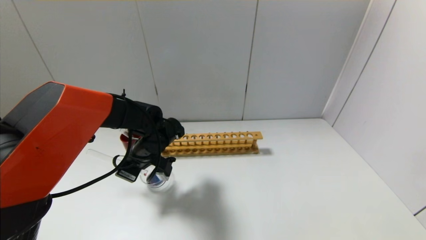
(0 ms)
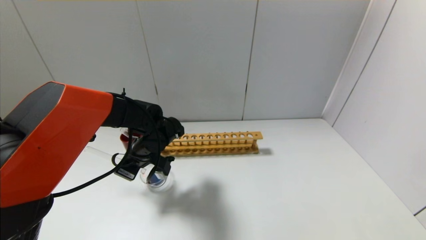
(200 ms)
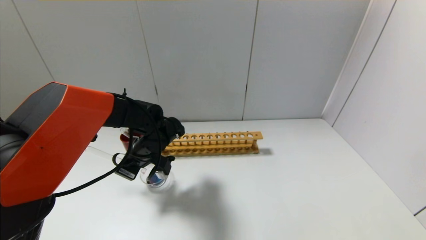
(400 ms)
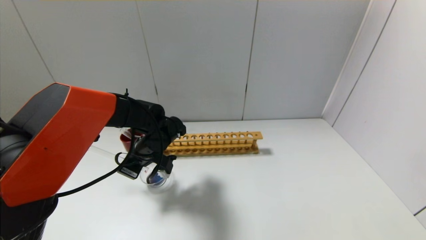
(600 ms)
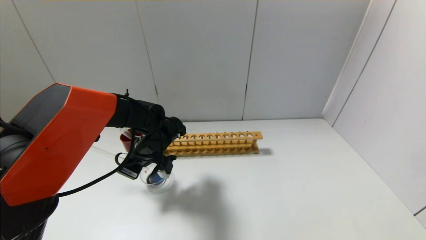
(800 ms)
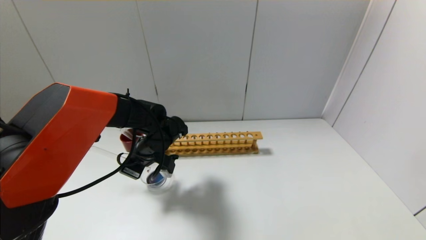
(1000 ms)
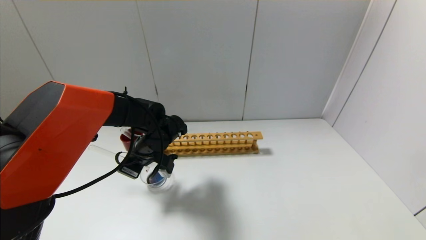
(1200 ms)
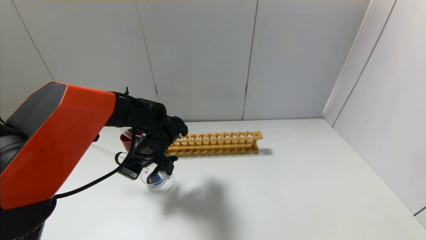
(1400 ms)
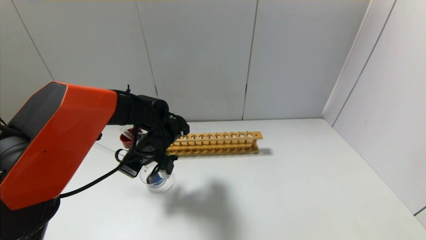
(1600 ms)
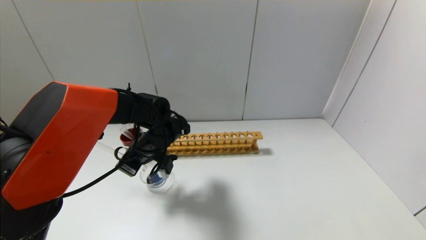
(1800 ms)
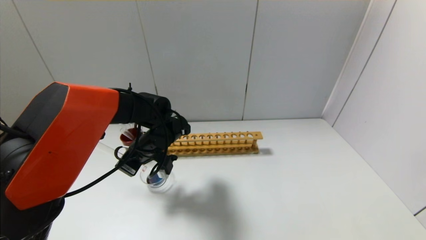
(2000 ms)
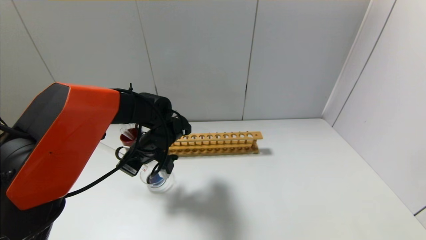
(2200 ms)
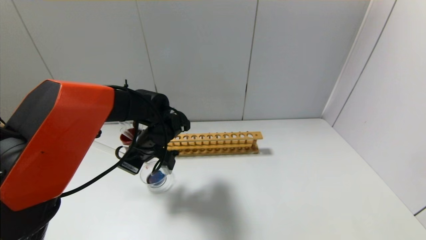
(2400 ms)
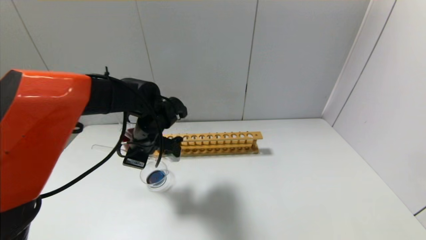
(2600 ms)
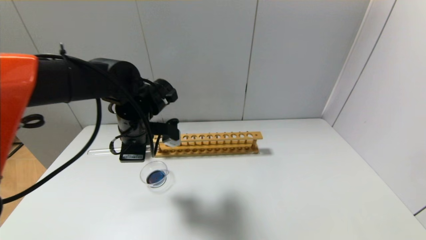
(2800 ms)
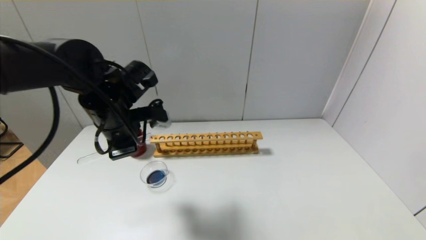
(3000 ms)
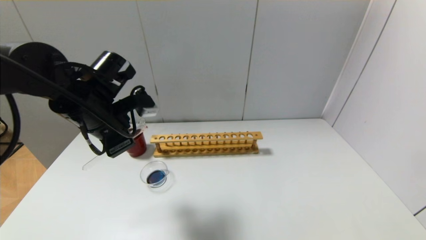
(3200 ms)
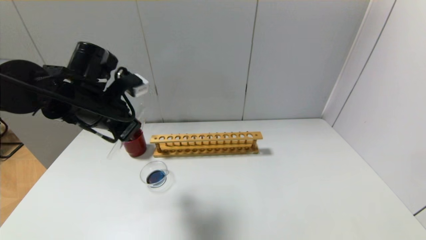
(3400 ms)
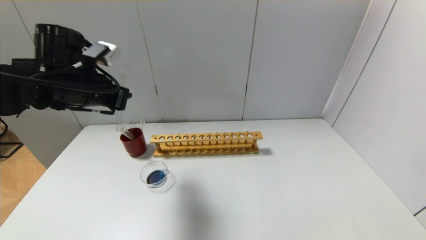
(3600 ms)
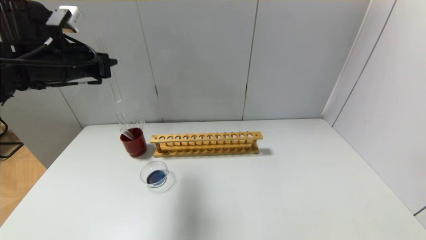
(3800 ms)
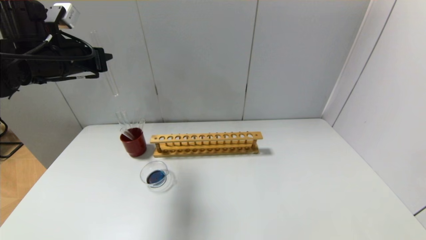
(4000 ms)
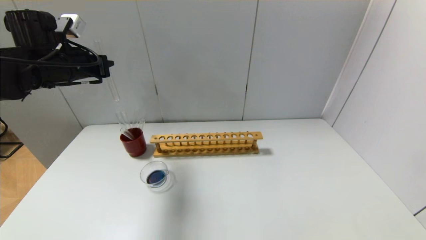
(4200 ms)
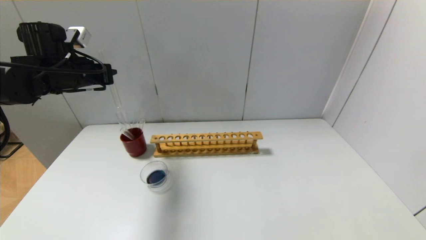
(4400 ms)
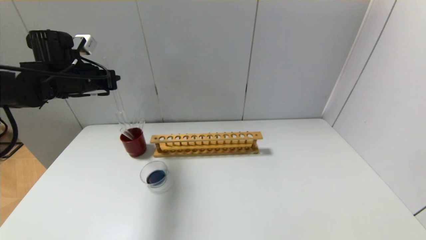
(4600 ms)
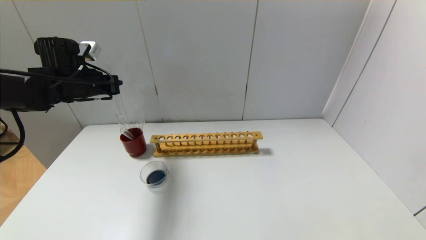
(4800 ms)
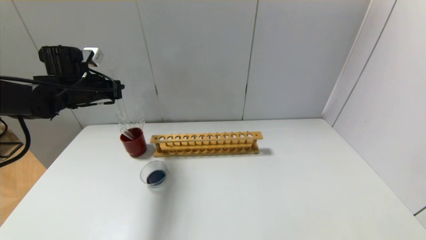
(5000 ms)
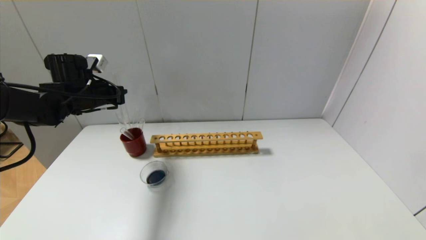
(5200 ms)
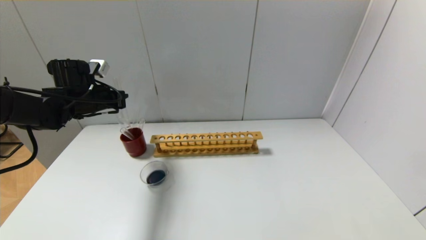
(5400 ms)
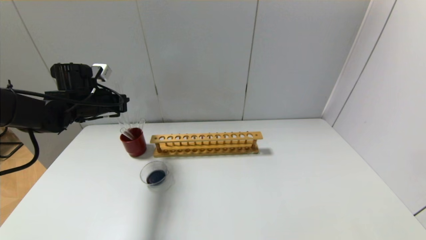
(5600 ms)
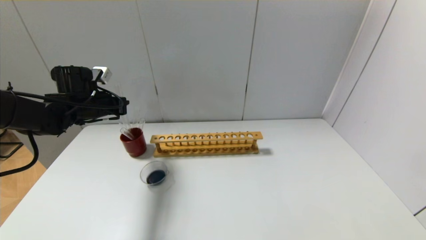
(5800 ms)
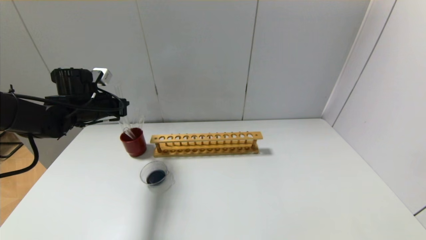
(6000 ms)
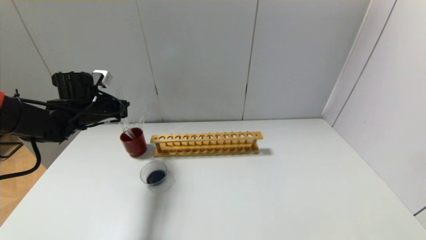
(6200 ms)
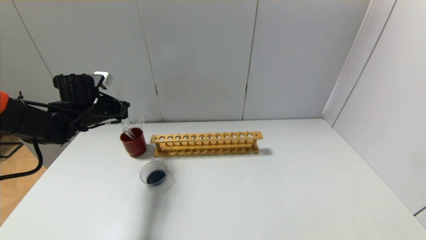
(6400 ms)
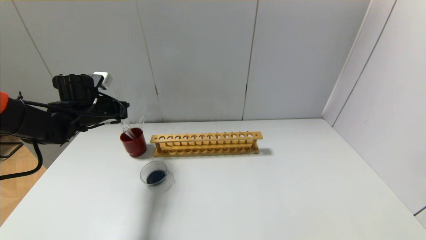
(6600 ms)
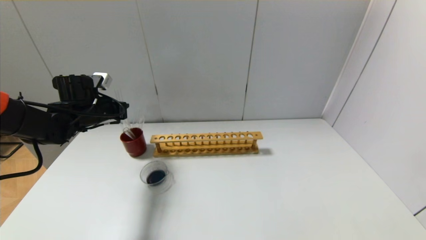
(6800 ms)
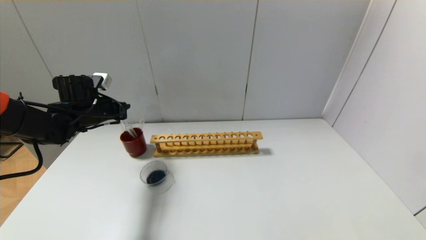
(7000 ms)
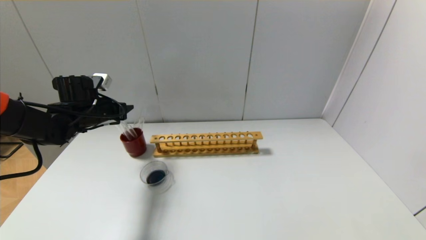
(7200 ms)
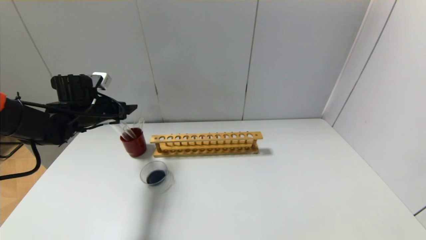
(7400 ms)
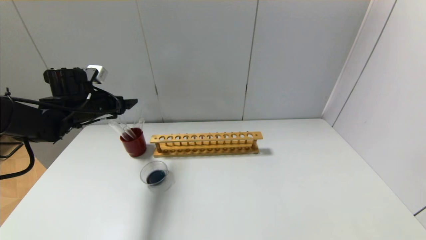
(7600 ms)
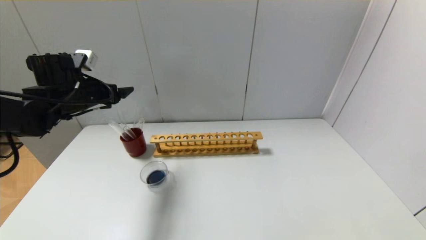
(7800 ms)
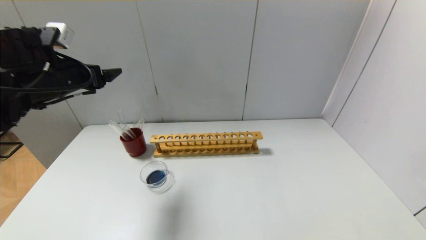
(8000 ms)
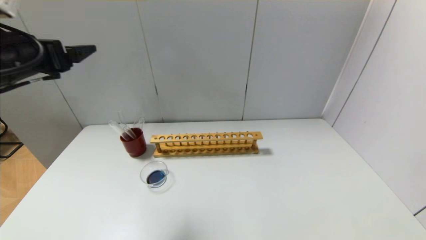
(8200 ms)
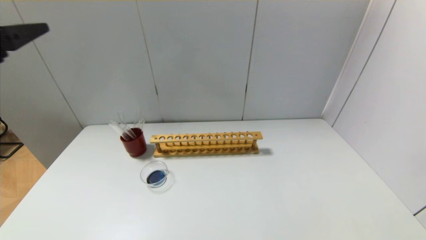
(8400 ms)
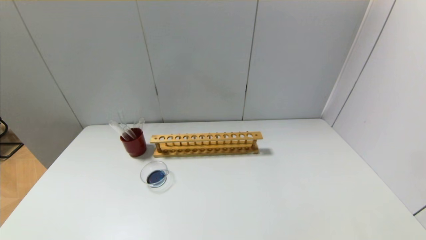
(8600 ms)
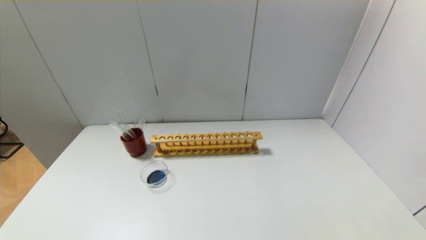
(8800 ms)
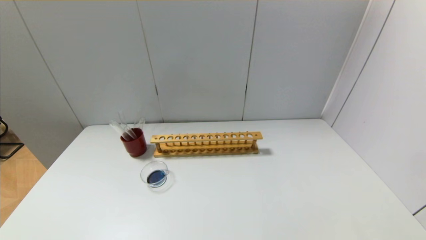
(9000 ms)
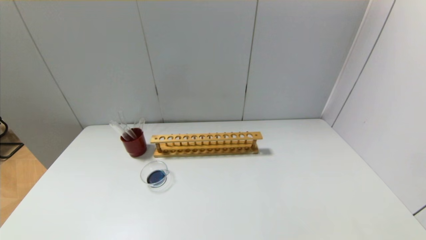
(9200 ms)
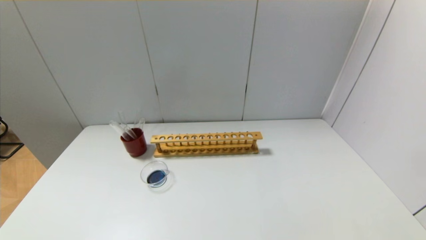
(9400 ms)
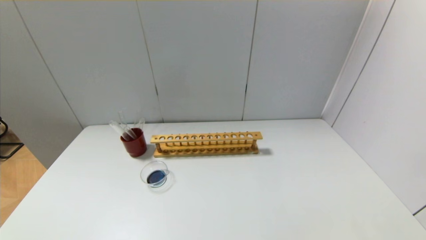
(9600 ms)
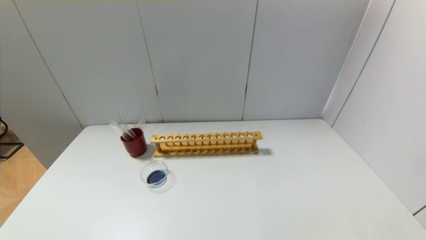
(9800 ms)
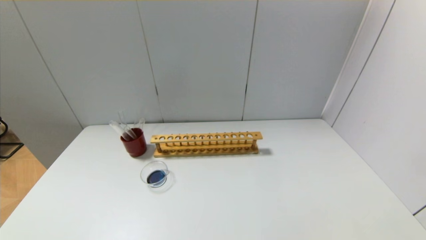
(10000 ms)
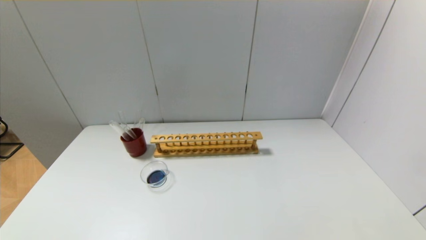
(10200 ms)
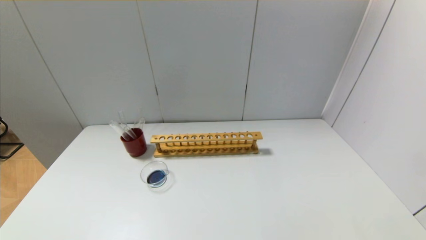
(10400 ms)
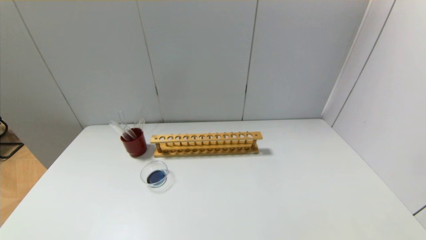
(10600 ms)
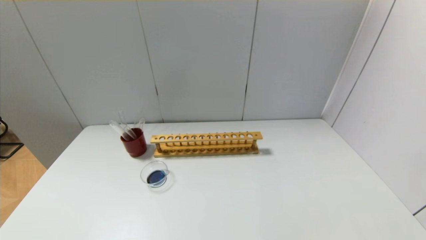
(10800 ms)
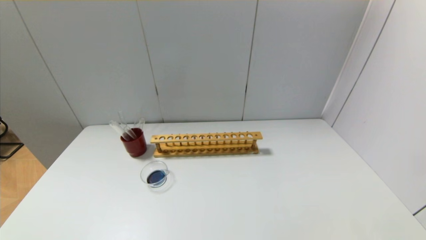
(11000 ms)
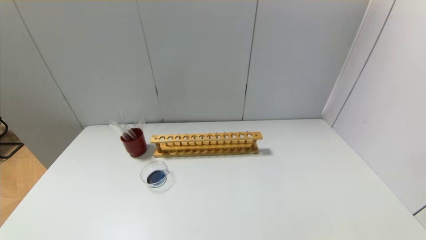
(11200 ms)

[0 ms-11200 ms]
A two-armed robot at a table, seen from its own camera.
Step, 0 ms to 2200 ms: Pour the red reagent into the graduated cylinder with the left gripper.
Step, 2400 ms to 7200 ms: Place the test tube into the brown cup with the left gripper.
0 ms to 1600 ms: The grippers stay close to where they were, moving slightly.
1600 ms to 3200 ms: The left gripper heads upward, backward and to the left, covering roughly 15 cm.
3200 ms to 4800 ms: The left gripper is displaced forward and to the left by about 15 cm.
4800 ms to 6400 ms: The left gripper heads downward, covering roughly 5 cm.
6400 ms to 8000 ms: The left gripper shifts about 15 cm upward and backward, and opens.
8000 ms to 9600 ms: The left gripper goes approximately 40 cm backward and downward.

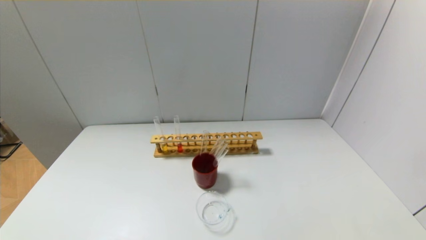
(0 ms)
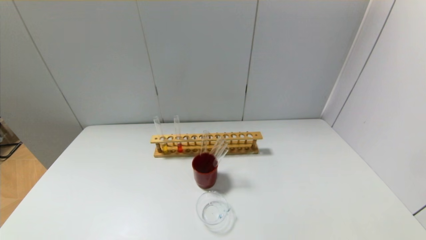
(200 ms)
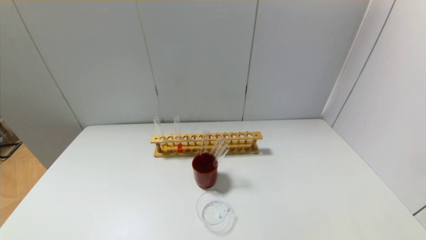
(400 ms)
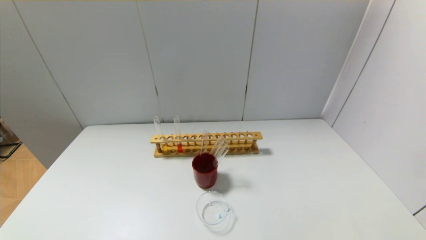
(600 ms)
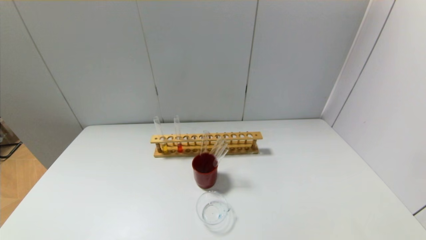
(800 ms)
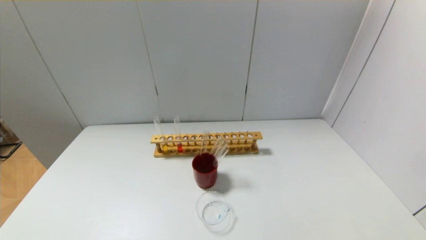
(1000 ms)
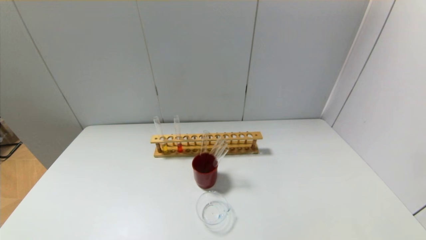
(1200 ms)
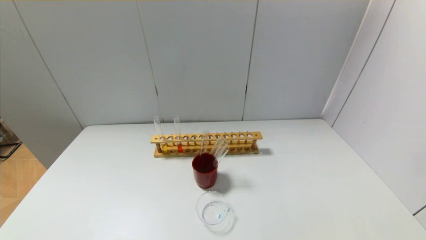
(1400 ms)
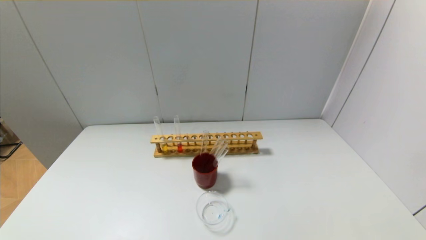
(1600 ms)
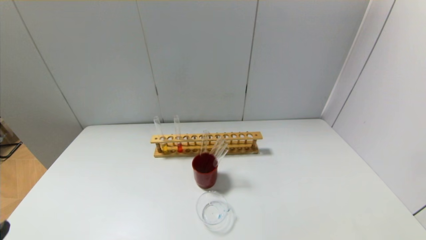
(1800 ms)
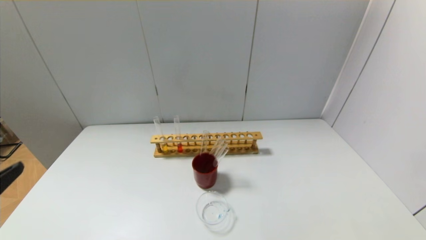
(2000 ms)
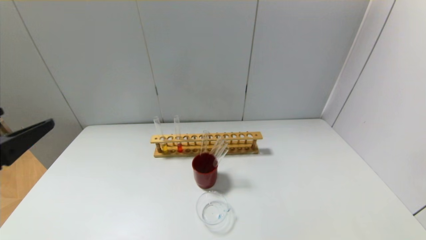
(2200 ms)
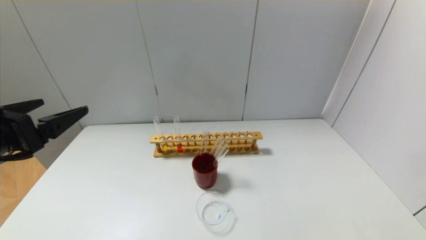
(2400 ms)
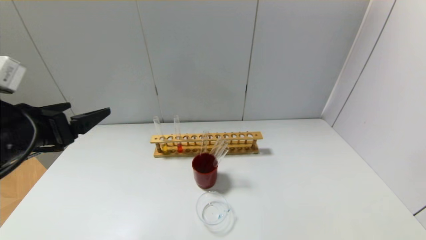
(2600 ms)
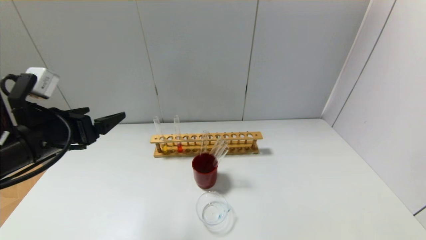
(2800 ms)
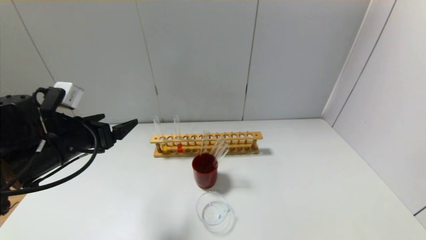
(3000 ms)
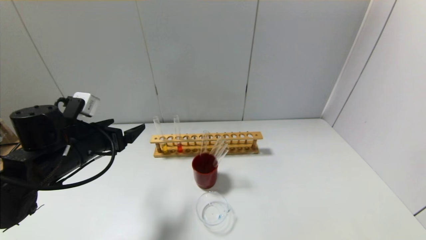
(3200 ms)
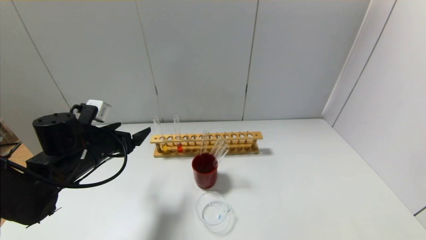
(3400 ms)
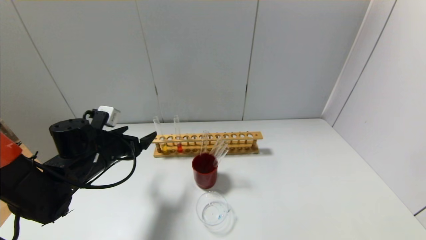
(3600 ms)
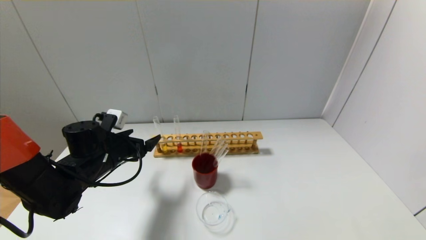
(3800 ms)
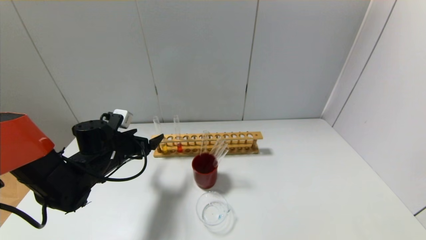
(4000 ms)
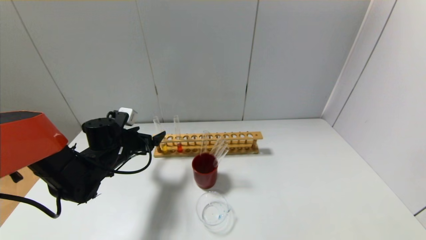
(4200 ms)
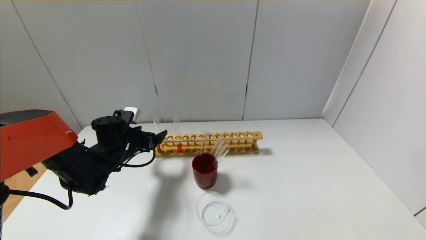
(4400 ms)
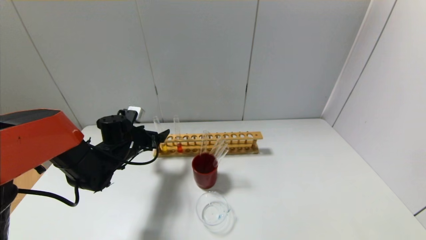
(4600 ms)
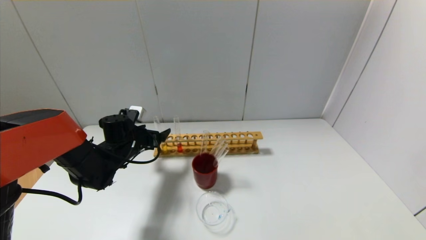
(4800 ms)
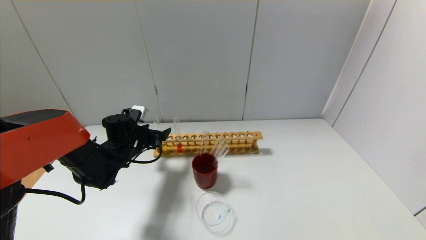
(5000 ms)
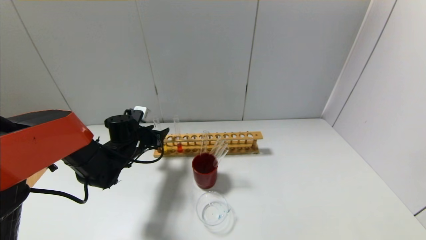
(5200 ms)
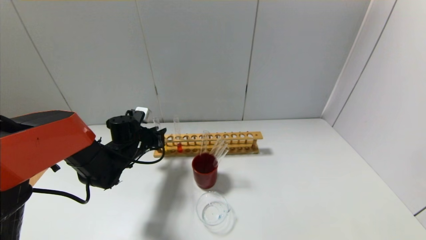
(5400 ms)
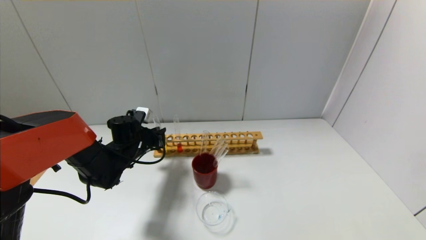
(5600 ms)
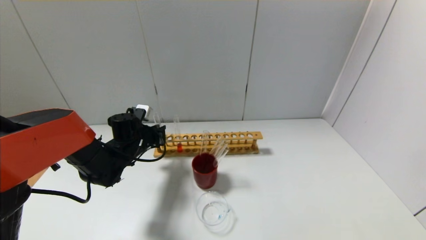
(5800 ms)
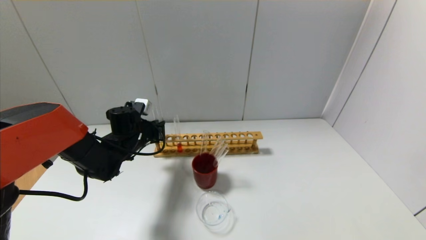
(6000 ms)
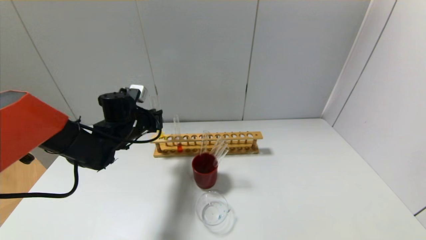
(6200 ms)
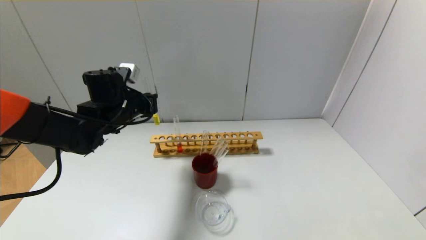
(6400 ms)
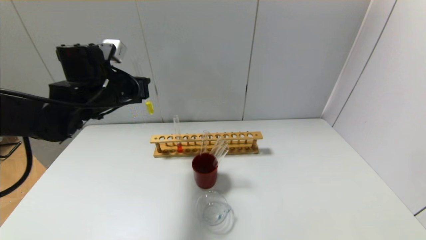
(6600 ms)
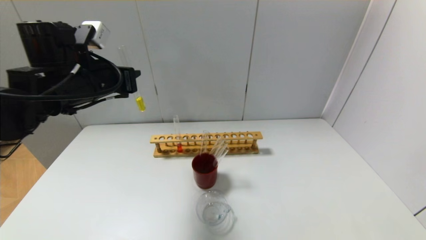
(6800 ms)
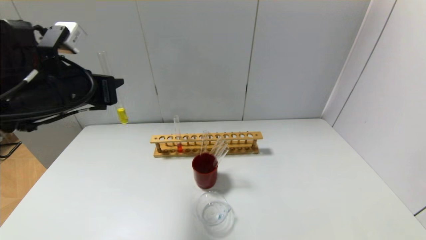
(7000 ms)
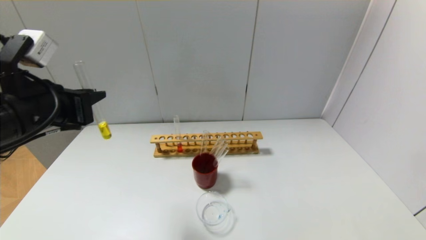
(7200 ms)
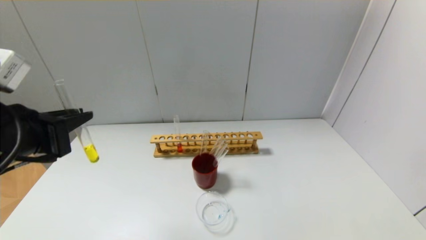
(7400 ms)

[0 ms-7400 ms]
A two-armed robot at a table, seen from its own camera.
Step, 0 ms to 5600 ms: Grasp the yellow reagent with the left gripper.
1400 ms to 3000 ms: The left gripper moves forward, some 25 cm.
3000 ms to 4400 ms: The left gripper heads forward and downward, covering about 15 cm.
4400 ms to 6000 ms: The left gripper closes.
6000 ms to 7400 ms: The left gripper moves backward and upward, roughly 30 cm.
